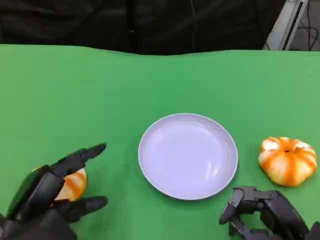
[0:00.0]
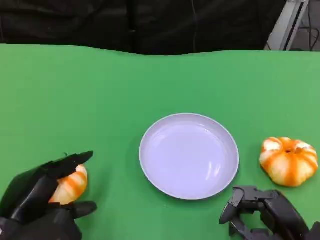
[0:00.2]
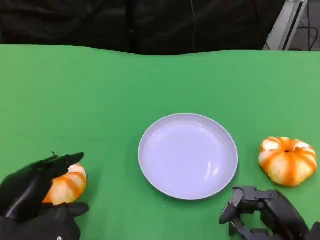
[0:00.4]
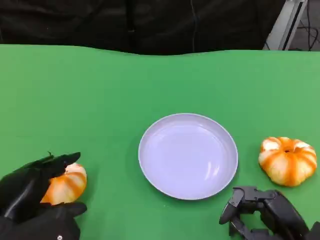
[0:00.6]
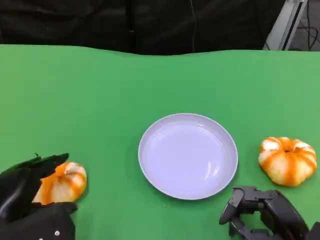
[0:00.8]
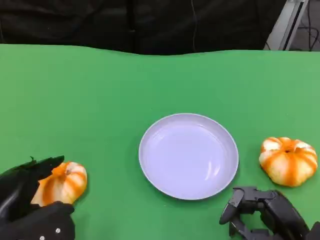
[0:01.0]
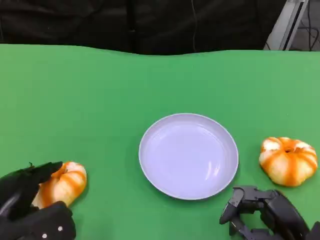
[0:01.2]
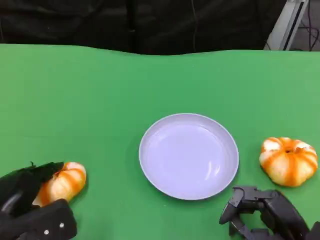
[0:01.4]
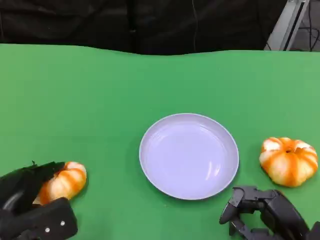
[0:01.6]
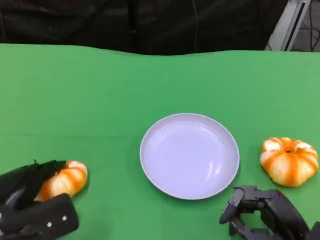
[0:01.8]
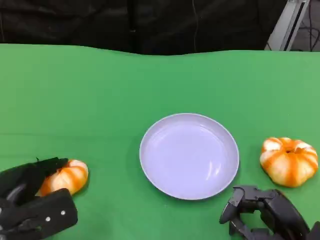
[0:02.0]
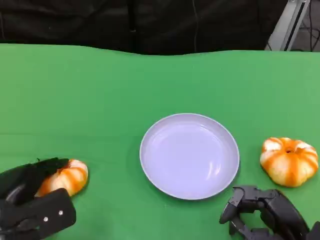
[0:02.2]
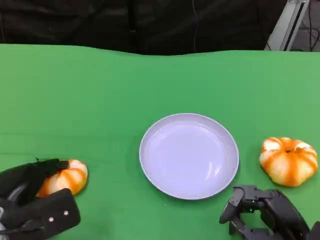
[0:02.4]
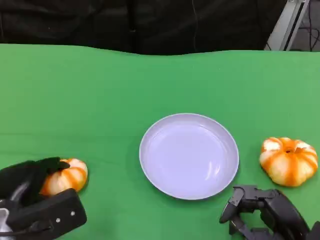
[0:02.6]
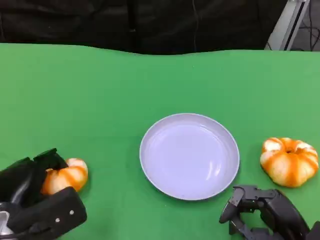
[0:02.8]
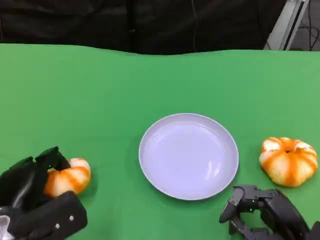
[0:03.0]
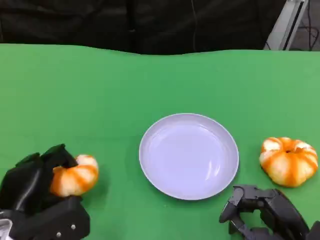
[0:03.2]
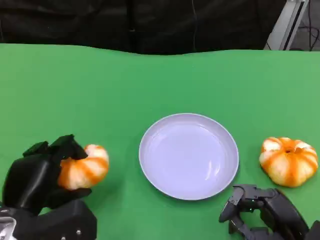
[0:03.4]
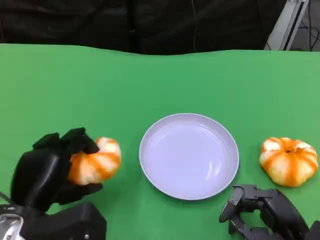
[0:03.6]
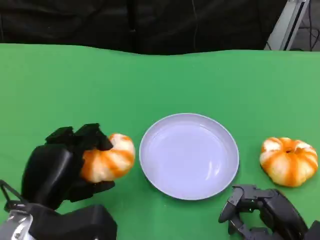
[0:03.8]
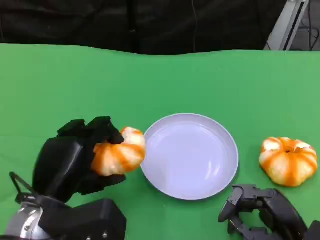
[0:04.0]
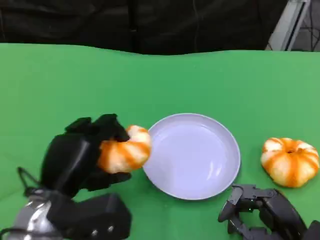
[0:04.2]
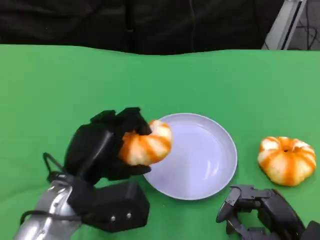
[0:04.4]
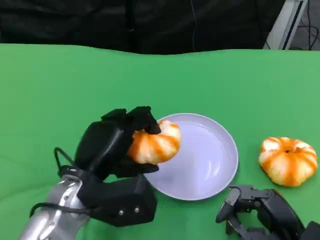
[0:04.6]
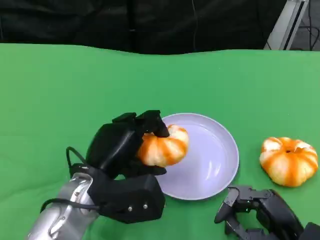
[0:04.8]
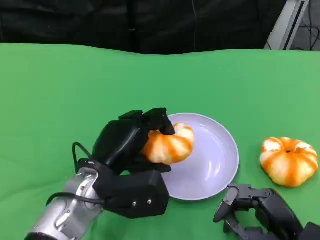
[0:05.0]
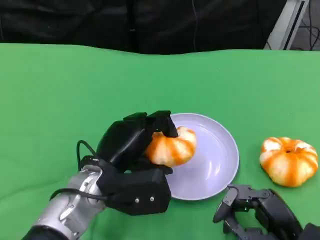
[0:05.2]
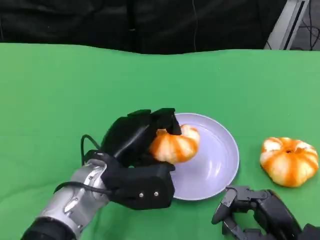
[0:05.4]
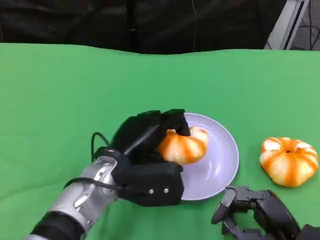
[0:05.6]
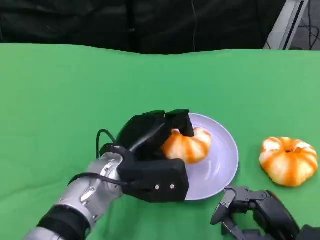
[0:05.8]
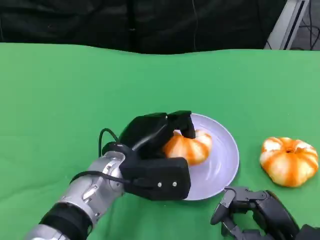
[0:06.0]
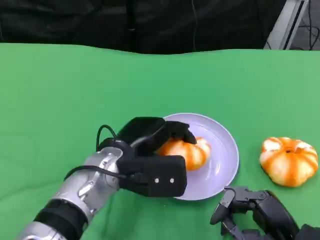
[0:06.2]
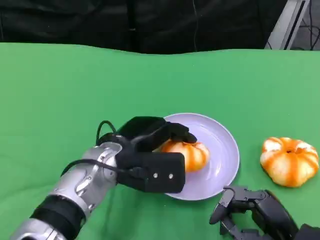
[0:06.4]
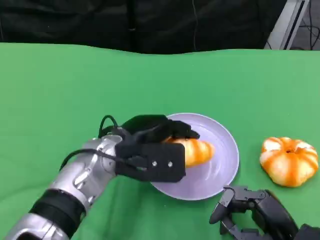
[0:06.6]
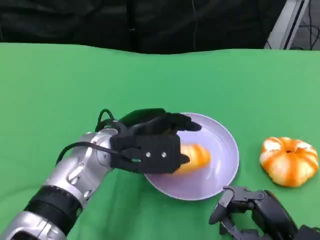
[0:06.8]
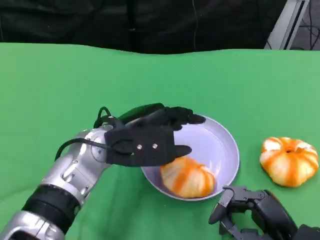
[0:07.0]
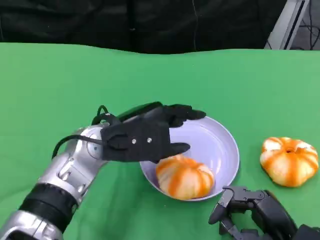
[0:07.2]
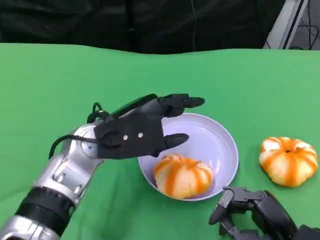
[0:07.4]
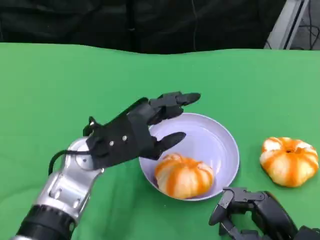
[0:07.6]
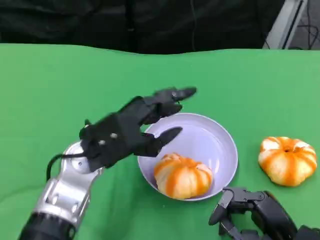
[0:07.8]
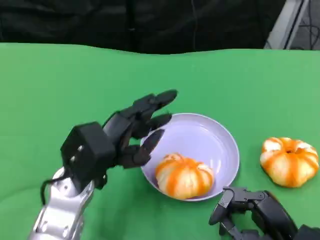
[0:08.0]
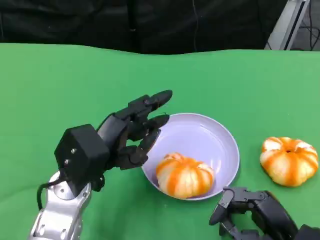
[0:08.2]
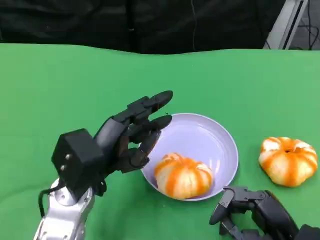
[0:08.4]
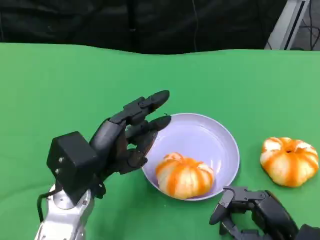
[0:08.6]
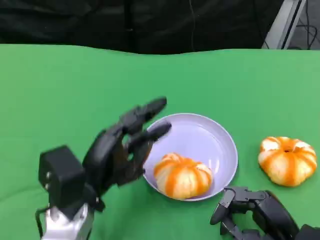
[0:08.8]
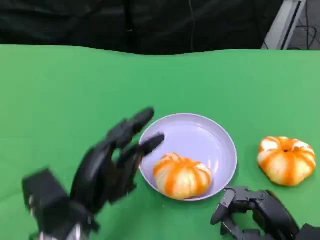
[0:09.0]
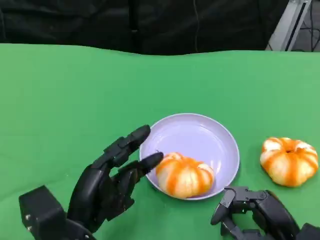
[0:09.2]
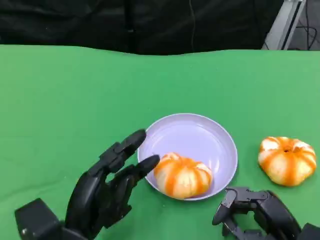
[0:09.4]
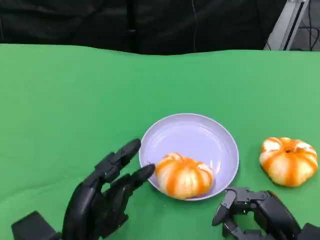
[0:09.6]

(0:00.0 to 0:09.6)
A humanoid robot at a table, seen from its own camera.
Task of the whole recording: Grasp the bread from the table and place it into the plate.
0:01.6 - 0:03.2: There are only small adjustments of the hands.
0:03.2 - 0:04.8: The left hand shifts some 10 cm to the right.
0:04.8 - 0:06.4: The left hand moves approximately 5 cm.
0:06.4 - 0:08.0: The left hand is displaced to the left by roughly 5 cm.
0:08.0 - 0:09.6: The left hand heads backward and downward, covering roughly 10 cm.

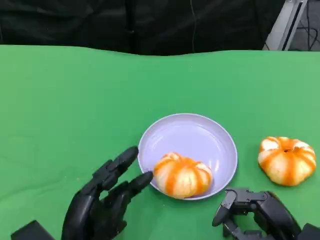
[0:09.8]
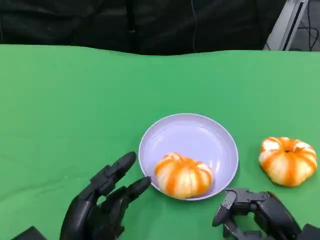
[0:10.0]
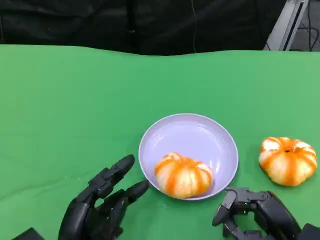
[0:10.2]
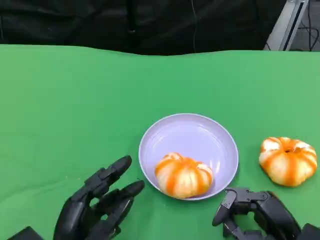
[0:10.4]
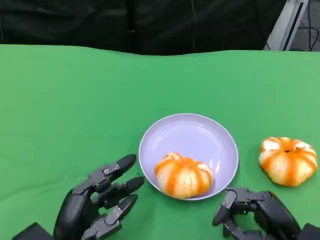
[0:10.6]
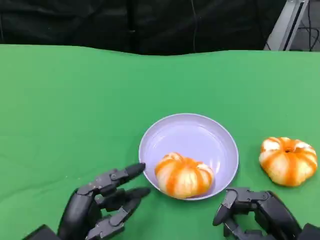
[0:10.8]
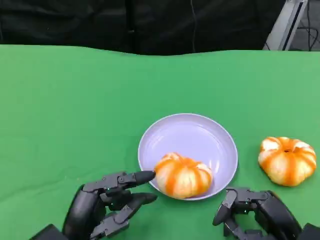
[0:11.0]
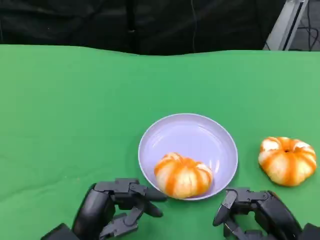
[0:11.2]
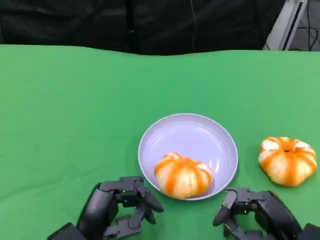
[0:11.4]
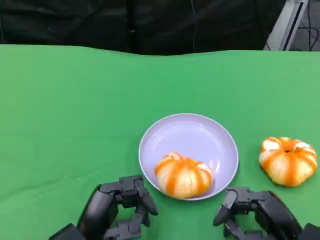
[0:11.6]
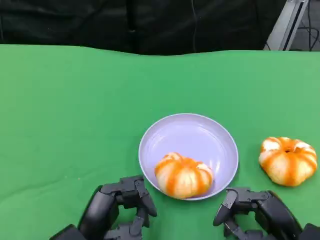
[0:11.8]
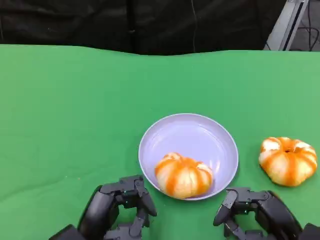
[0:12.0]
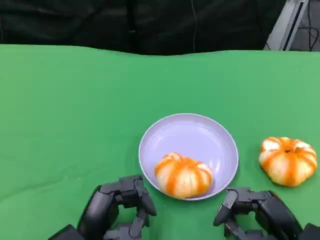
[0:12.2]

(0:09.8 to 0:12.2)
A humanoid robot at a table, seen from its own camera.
Task of the whole recording: Grasp the bread from the table and place it into the plate.
0:09.8 - 0:11.0: The hands stay close to where they were, moving slightly.
0:11.0 - 0:12.2: Neither hand changes place.

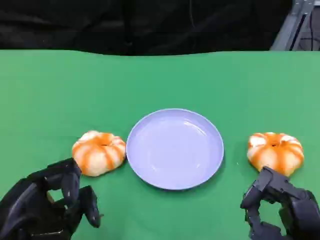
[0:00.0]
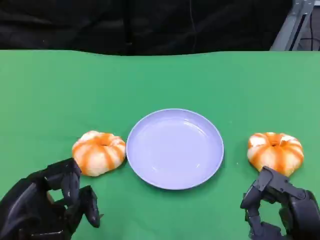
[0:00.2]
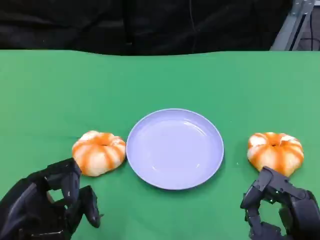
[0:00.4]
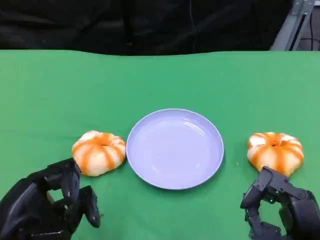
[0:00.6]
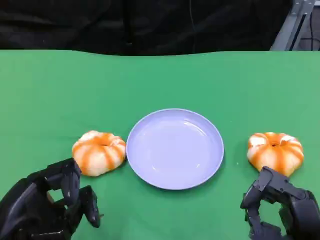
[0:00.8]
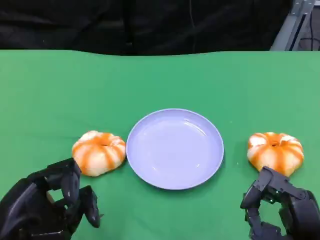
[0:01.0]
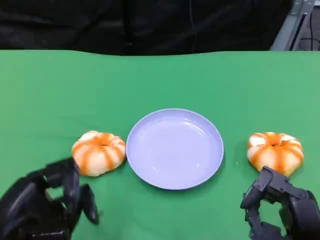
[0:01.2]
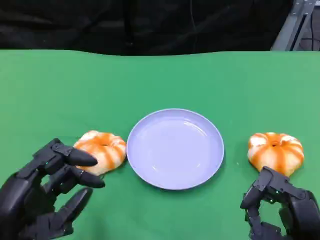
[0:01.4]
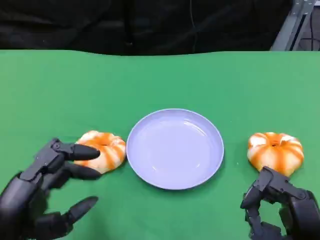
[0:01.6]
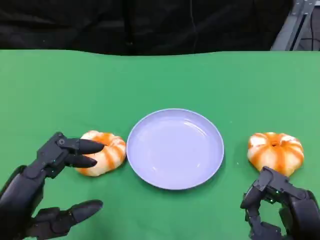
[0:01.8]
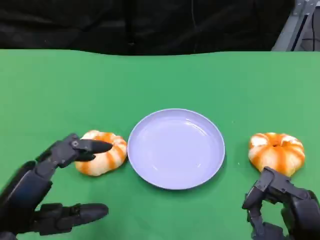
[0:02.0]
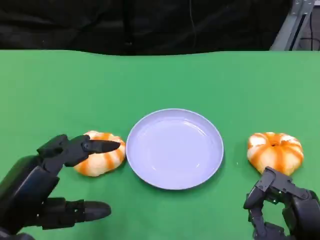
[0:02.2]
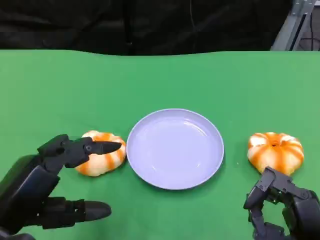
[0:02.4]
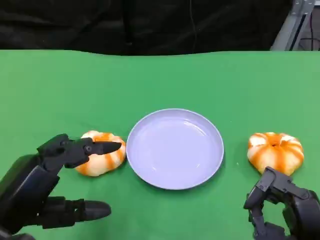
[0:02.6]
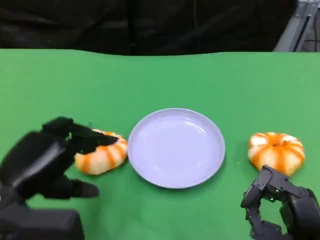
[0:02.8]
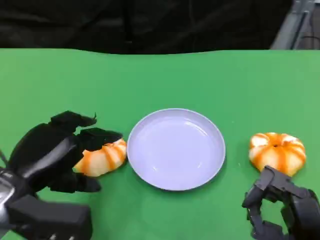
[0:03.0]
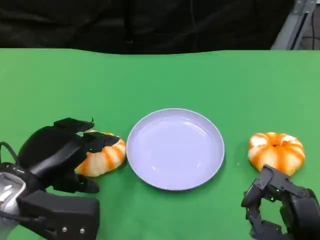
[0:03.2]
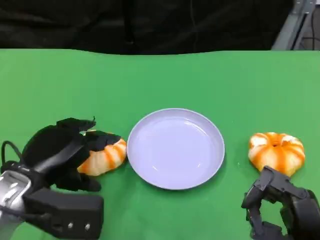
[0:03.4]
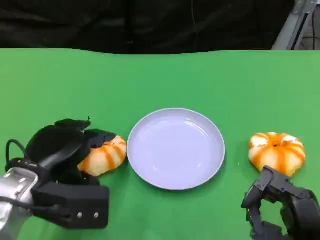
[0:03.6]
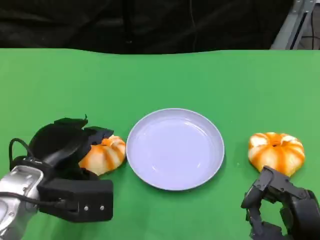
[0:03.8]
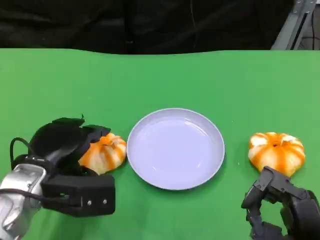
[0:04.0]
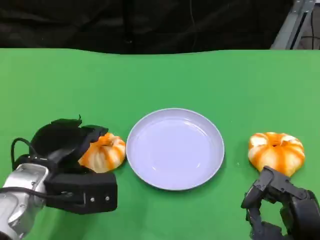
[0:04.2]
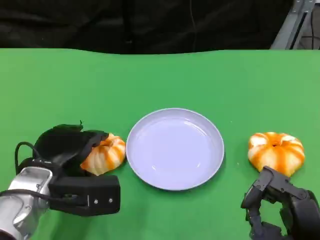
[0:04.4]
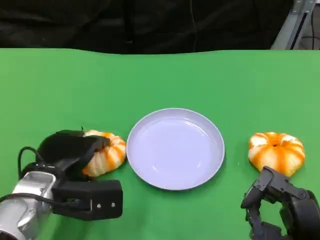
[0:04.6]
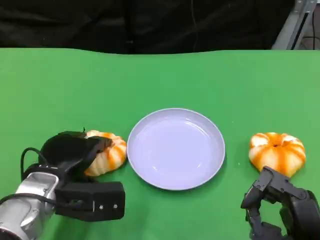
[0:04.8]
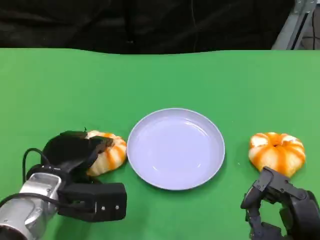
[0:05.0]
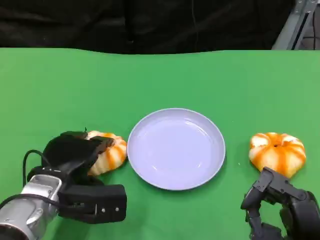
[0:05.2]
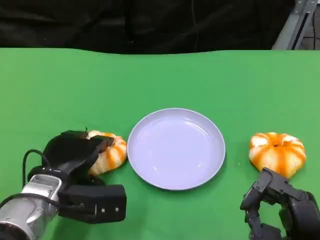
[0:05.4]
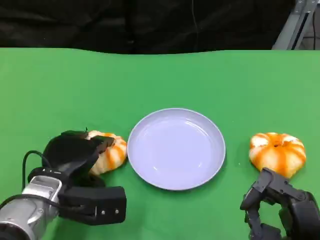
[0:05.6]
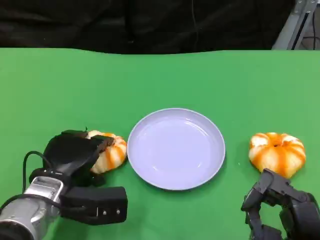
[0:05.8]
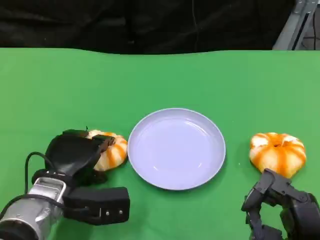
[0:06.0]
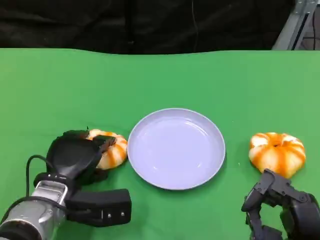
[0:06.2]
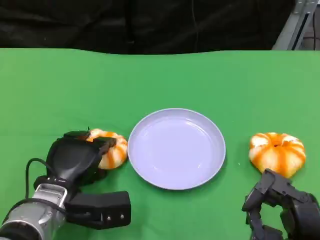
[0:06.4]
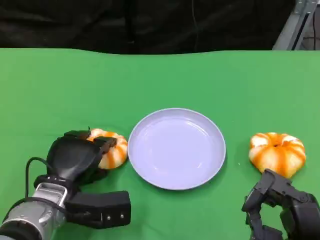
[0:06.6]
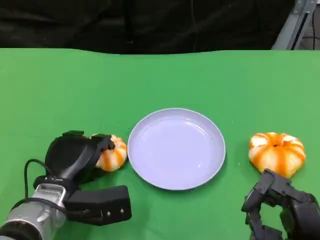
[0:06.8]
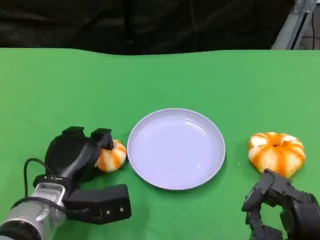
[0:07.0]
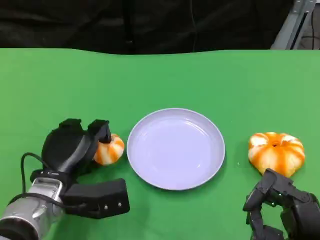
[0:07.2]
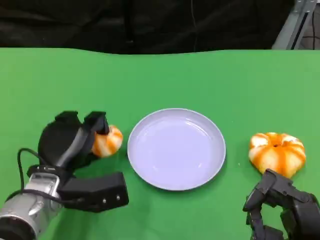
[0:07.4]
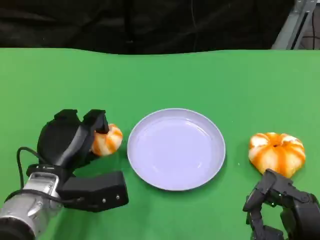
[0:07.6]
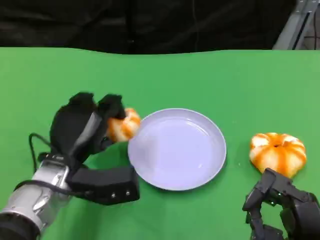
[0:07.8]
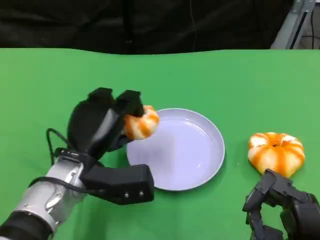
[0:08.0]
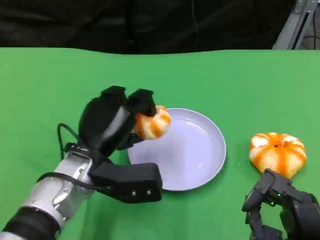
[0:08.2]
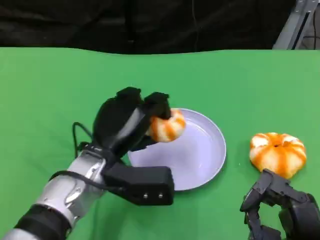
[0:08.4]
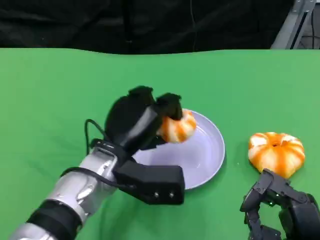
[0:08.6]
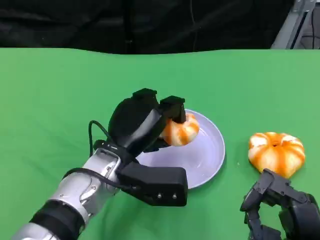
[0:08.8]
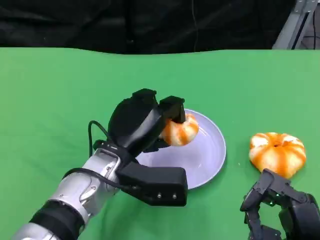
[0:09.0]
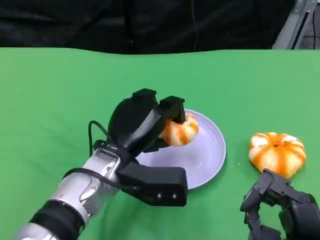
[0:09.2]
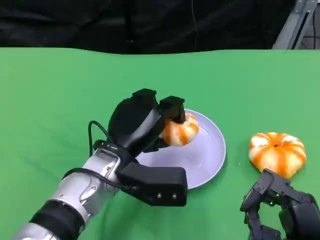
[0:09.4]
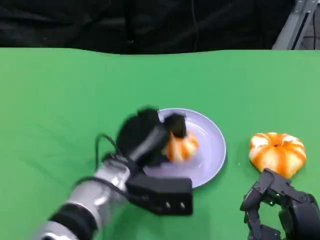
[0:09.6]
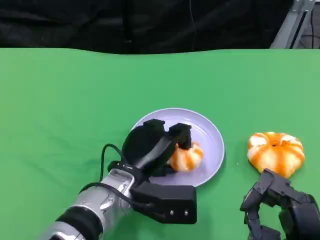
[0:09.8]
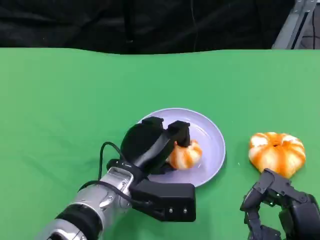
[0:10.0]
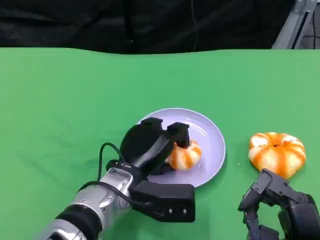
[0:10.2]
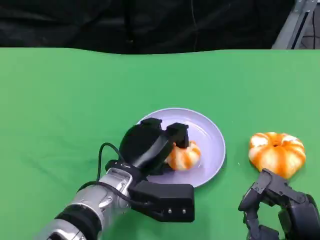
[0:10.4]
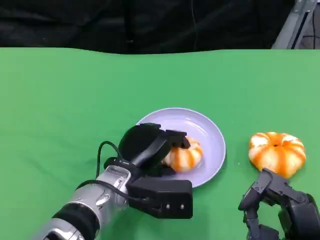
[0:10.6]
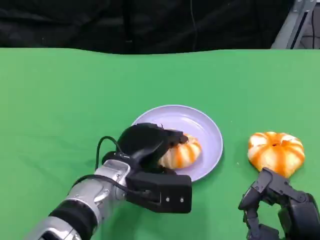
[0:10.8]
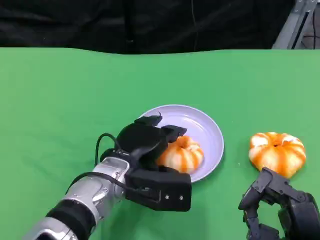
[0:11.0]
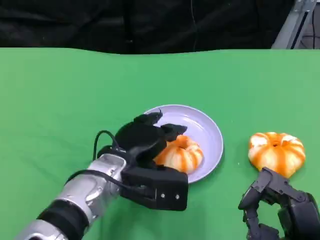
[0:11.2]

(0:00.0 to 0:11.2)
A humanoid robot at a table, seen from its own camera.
Task of the whole recording: Grasp the bread from the table and place it into the plate.
0:01.6 - 0:03.2: The left hand goes approximately 10 cm forward.
0:03.2 - 0:04.8: The left hand moves downward, about 5 cm.
0:04.8 - 0:06.4: The hands stay close to where they were, moving slightly.
0:06.4 - 0:08.0: The left hand moves upward, roughly 5 cm.
0:08.0 - 0:09.6: The left hand is displaced to the right by about 5 cm.
0:09.6 - 0:11.2: There are only small adjustments of the hands.
